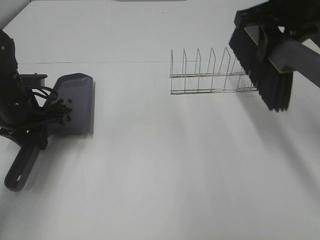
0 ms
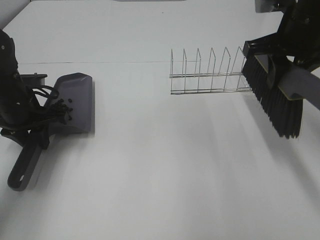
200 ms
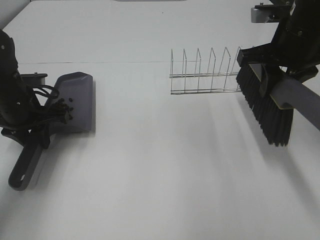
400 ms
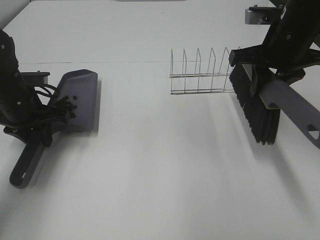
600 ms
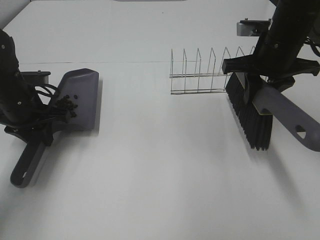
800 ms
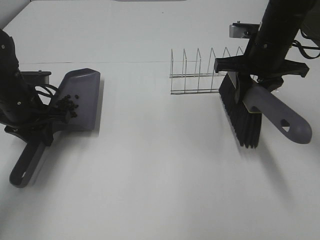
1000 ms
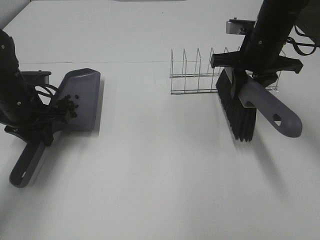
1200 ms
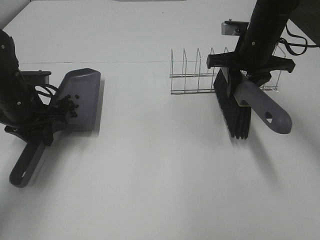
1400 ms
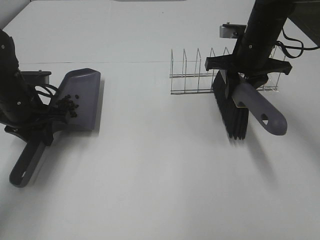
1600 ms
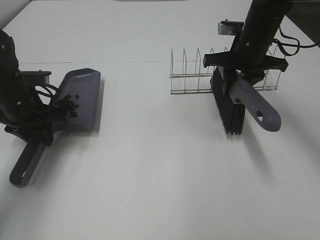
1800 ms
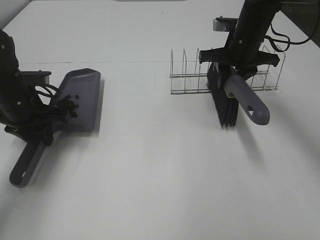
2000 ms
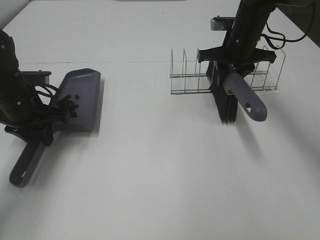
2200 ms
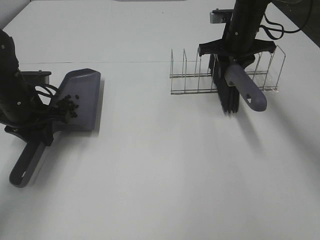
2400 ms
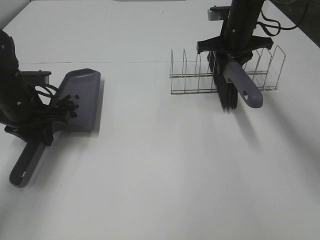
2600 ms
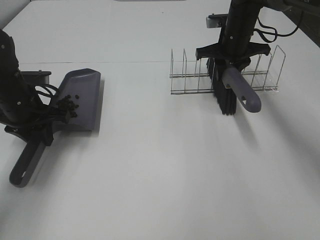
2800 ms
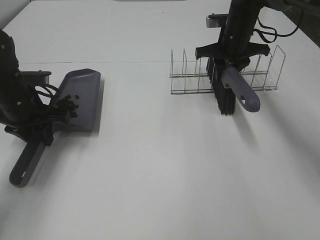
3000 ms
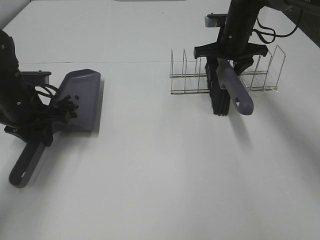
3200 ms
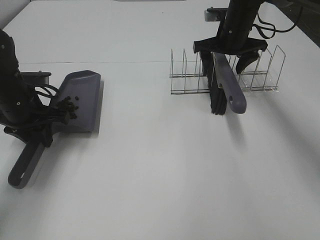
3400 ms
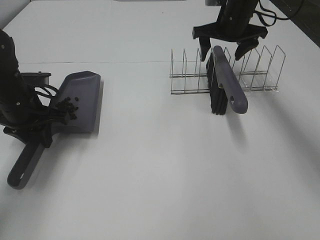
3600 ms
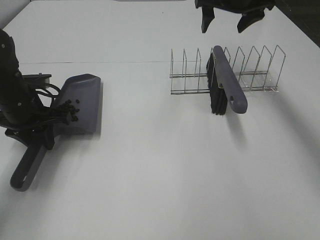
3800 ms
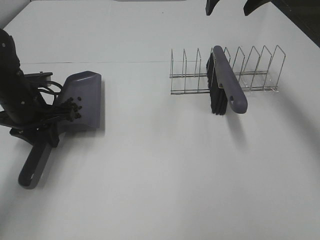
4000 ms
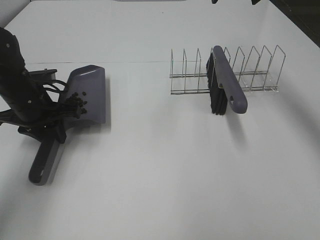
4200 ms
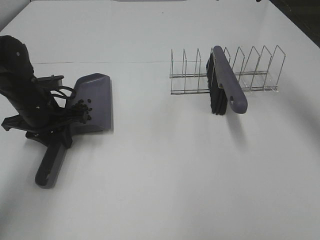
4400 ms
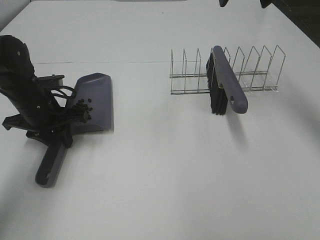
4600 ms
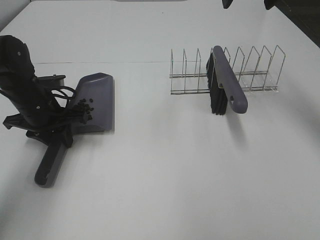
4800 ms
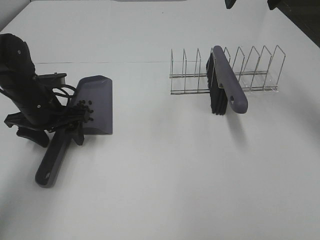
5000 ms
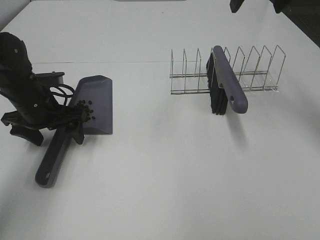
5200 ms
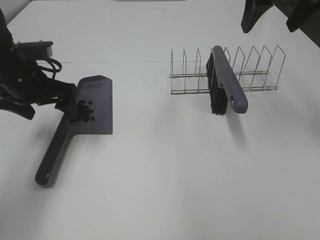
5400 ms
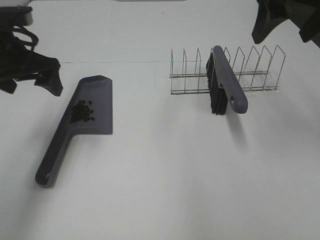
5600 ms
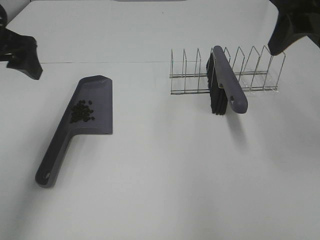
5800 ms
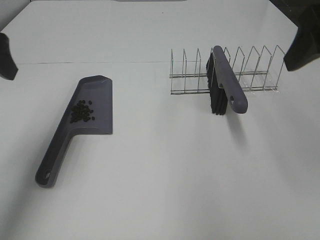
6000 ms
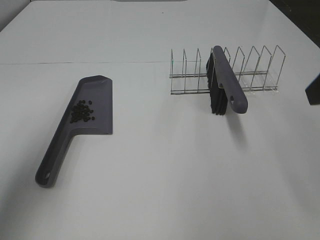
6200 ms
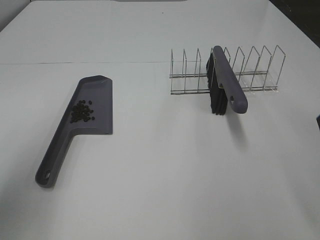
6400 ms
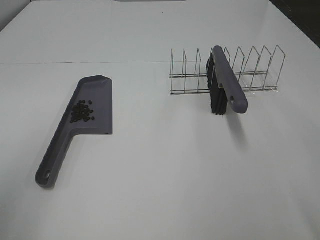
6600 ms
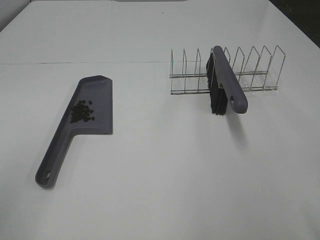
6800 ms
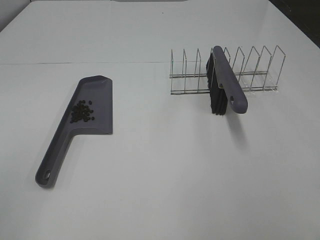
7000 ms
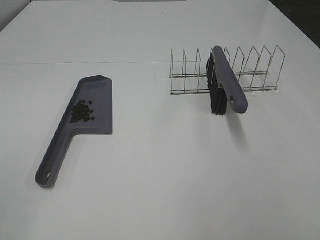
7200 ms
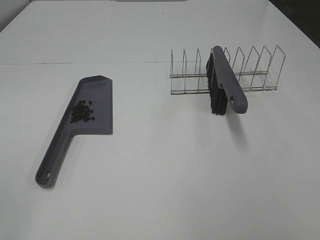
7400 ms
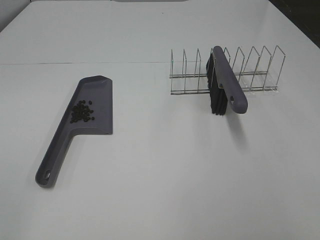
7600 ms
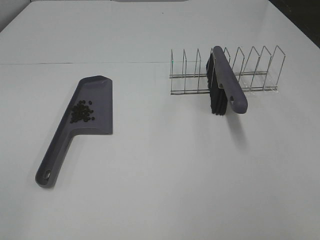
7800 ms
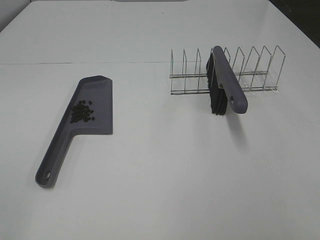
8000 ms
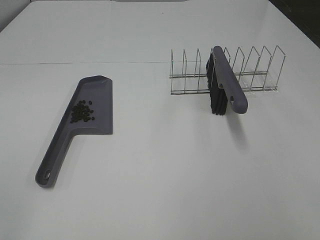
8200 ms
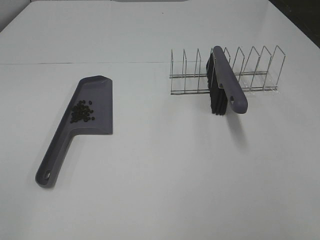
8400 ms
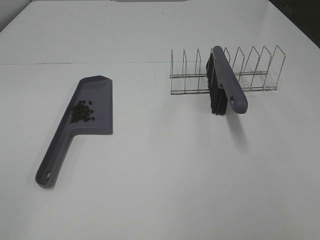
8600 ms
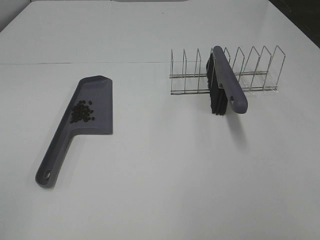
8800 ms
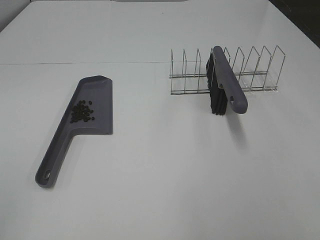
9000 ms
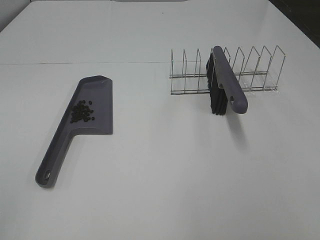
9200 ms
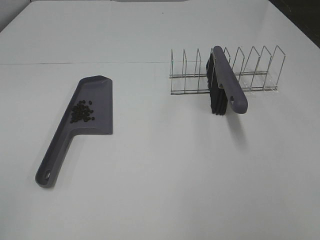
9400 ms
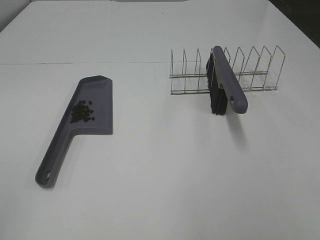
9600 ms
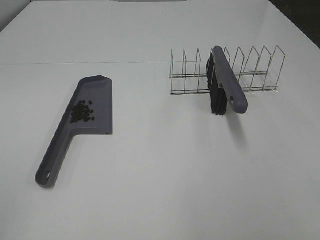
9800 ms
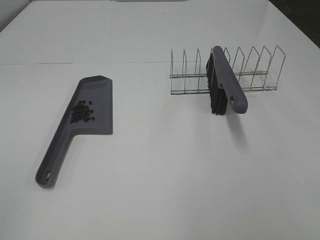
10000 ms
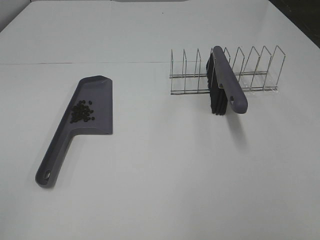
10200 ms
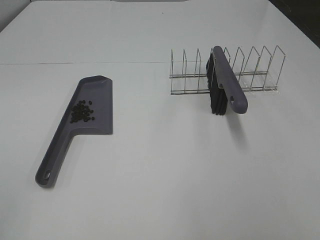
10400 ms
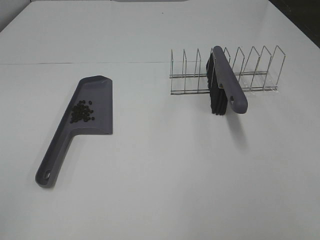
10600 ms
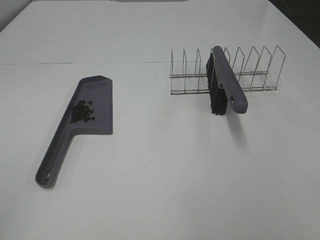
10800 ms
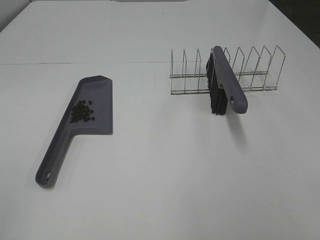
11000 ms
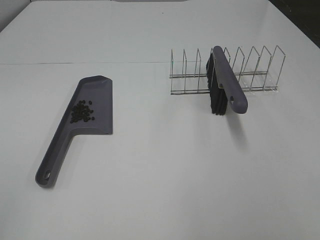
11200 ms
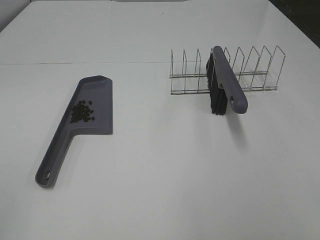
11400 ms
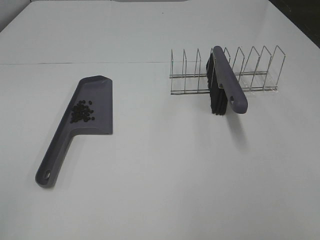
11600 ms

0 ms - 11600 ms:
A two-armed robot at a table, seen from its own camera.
Task of the whole recording: Sweep Coffee Bean.
Step, 0 ms - 3400 ms: Right hand:place the broom on the rack.
Step, 3600 ms - 5000 ms: Left hand:place the dustpan on the table.
0 ms - 1400 ms: The right gripper travels downward and forward by about 10 cm.
1400 ms - 2800 ms: The right gripper travels forward by roughly 10 cm.
2800 ms - 4400 ms: The right gripper shifts roughly 20 cm upward, and opens.
4400 ms - 5800 ms: The right gripper is displaced backward by some 15 cm. Meanwhile the left gripper is displaced upward by approximately 20 cm, and opens up.
5800 ms - 7200 ms: Both grippers move backward, roughly 25 cm.
8800 ms - 11600 ms: The two grippers keep their place.
